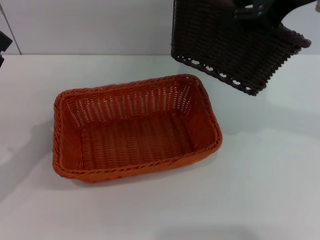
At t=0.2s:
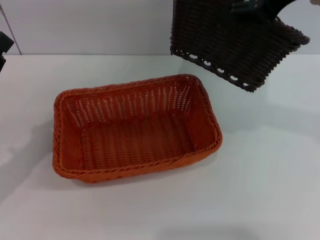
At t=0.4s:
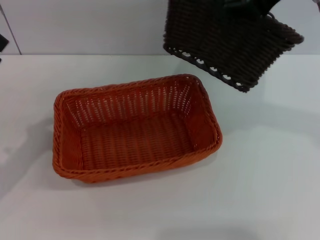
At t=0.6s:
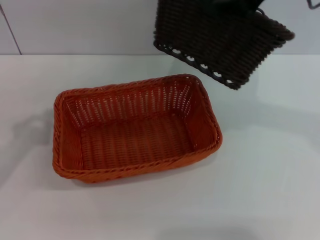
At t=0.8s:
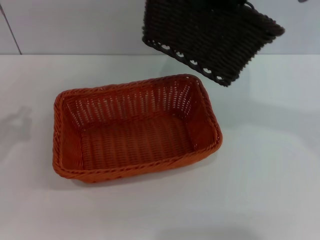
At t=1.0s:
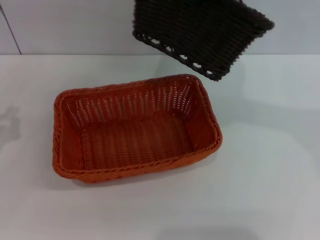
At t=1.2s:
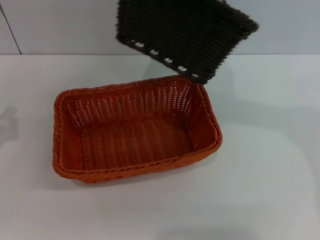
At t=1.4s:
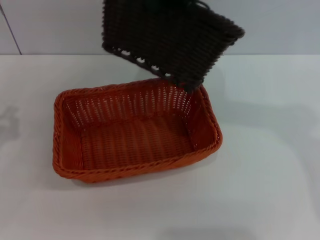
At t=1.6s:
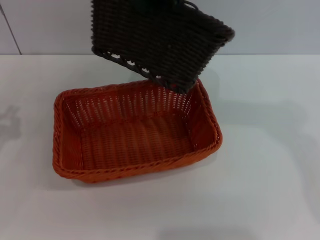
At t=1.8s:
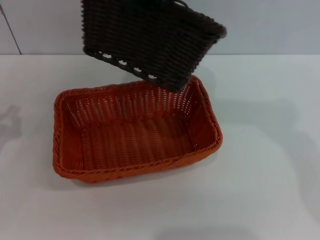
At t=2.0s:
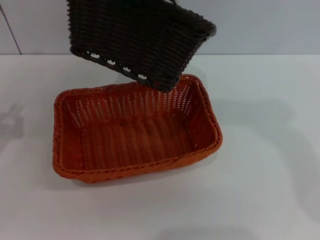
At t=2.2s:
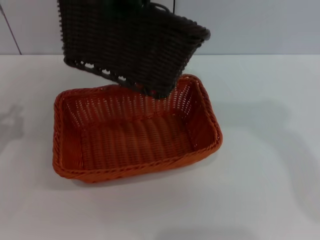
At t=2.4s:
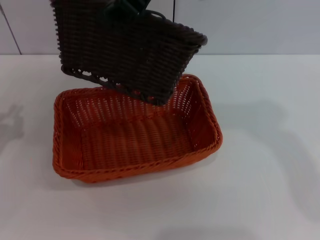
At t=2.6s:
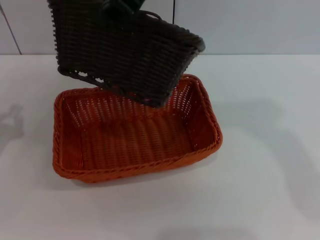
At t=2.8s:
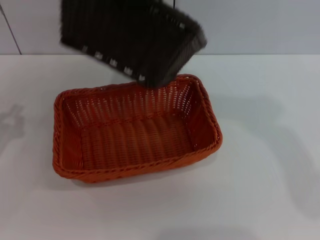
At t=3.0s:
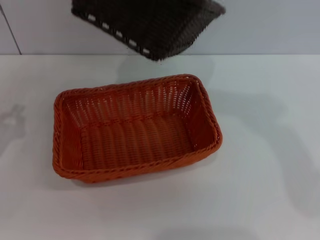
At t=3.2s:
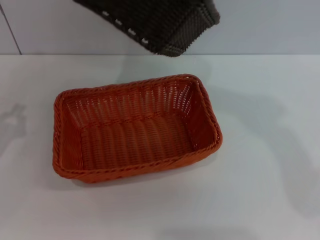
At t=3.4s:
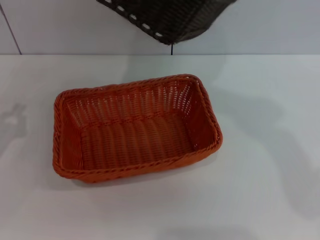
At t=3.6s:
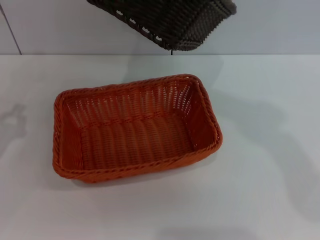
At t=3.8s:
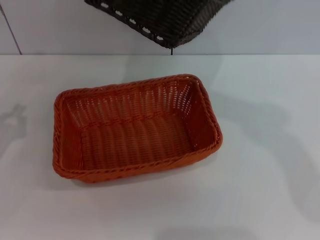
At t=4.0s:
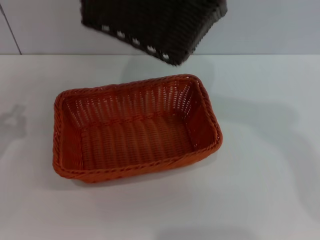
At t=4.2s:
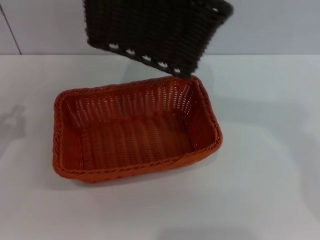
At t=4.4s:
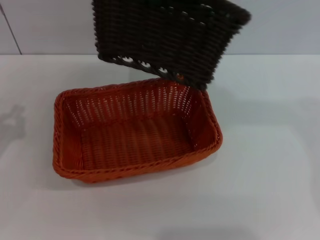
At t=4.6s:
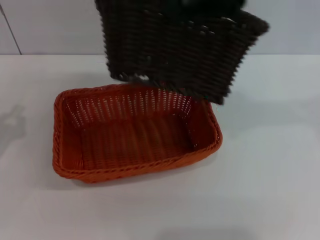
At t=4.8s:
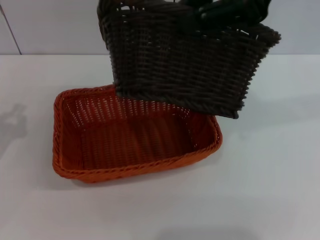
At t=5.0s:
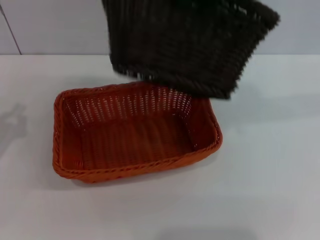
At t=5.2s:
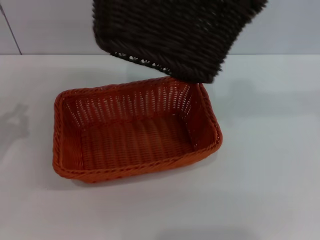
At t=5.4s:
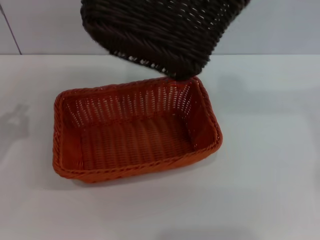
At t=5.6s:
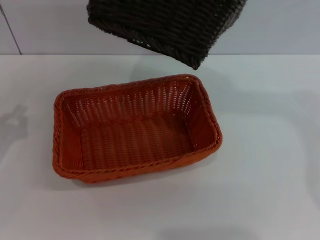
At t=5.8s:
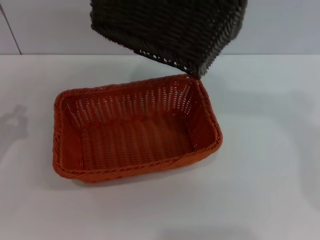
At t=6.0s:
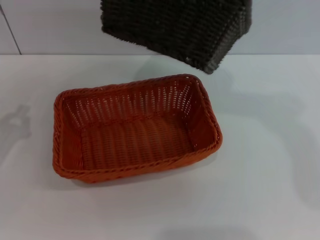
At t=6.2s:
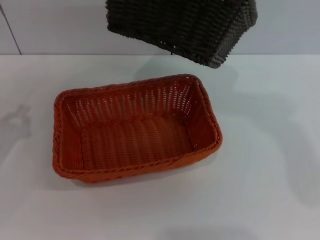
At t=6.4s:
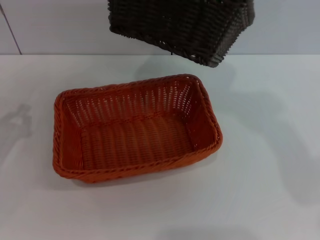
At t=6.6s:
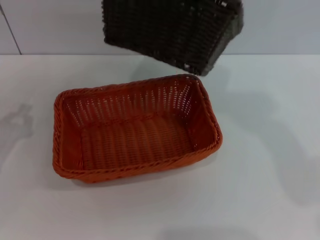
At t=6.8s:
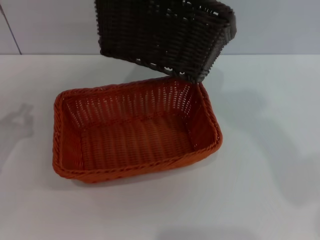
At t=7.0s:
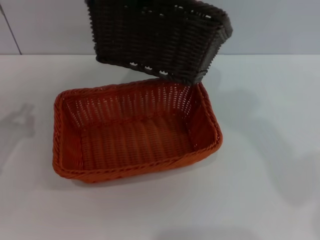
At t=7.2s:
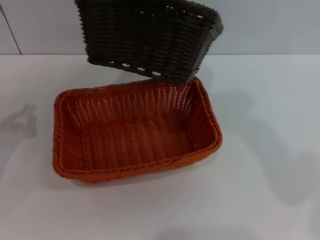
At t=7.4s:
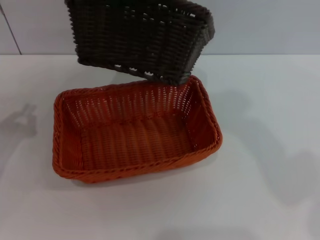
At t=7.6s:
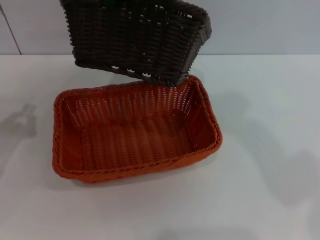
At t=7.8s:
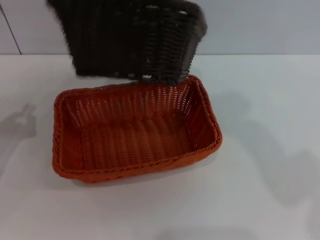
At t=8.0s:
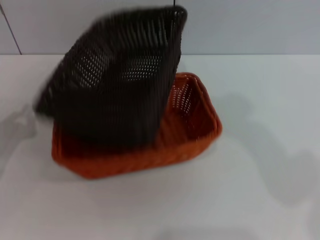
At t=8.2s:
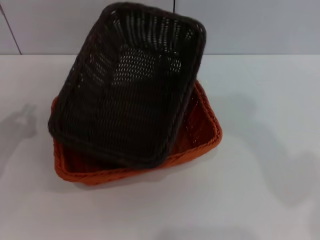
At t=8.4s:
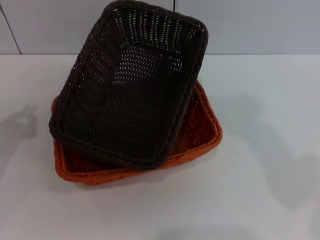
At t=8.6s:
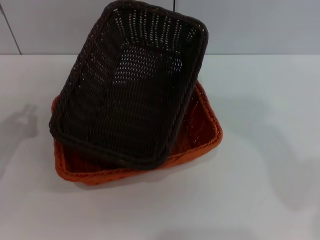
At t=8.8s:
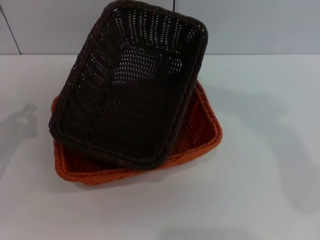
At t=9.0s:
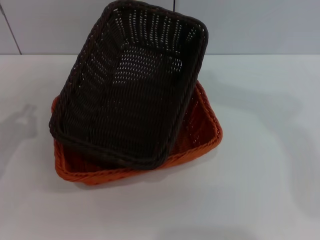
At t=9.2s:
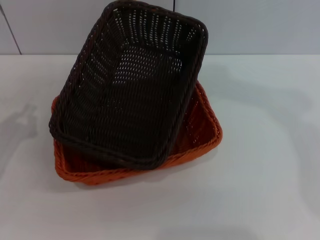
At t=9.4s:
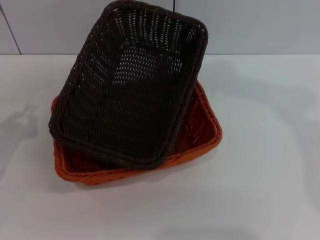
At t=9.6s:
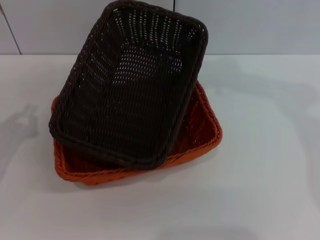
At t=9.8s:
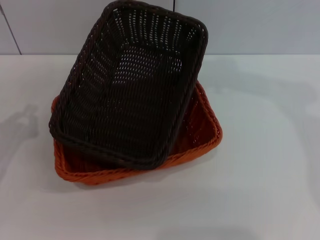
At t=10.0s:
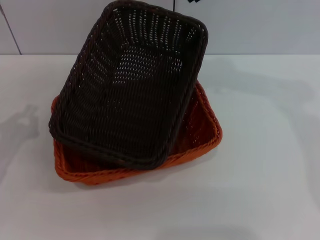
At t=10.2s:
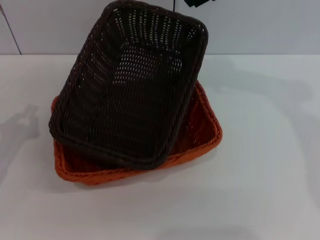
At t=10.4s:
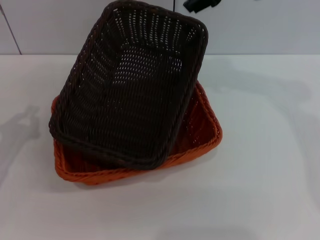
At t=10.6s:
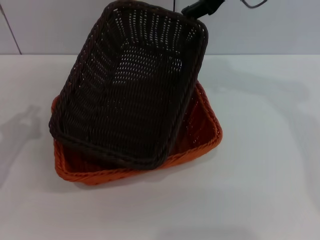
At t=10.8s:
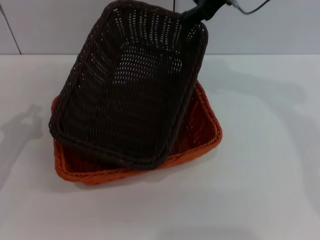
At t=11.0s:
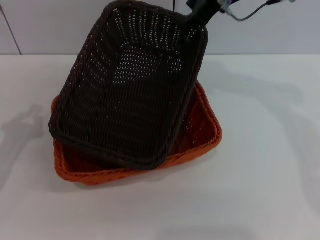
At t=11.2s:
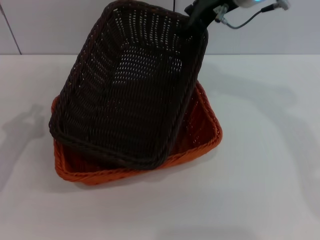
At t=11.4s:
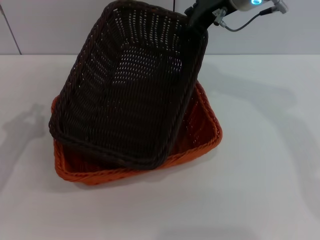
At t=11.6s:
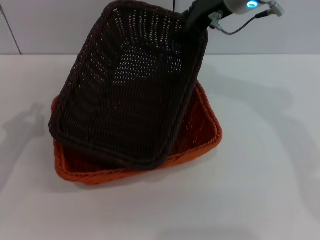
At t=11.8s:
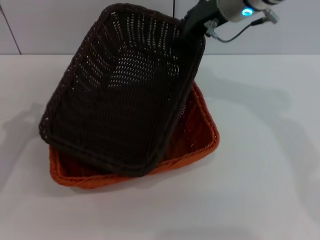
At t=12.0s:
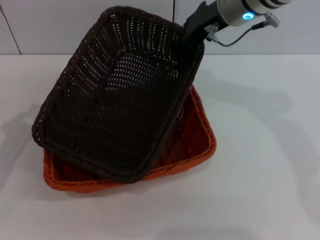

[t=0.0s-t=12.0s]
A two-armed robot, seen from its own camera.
t=0.0s to t=1.6s: The right gripper travels to the left by roughly 10 cm.
t=1.6s to t=3.0s: There are only small adjustments of the grippers.
t=3.0s to t=4.4s: The right gripper travels to the right by some 5 cm.
t=4.4s to t=6.0s: There are only small adjustments of the grippers.
t=6.0s to t=7.6s: The right gripper shifts some 10 cm to the left.
t=7.6s to t=9.0s: The right gripper moves to the right, roughly 10 cm.
t=10.4s to t=12.0s: The right gripper travels downward by approximately 5 cm.

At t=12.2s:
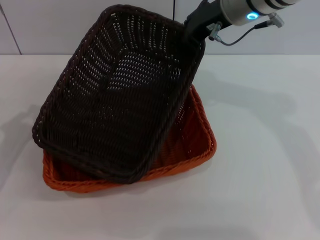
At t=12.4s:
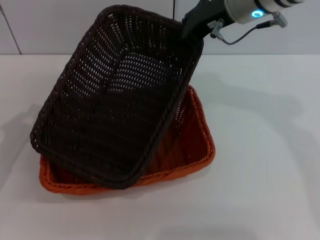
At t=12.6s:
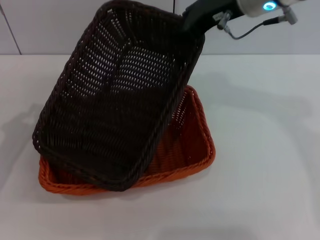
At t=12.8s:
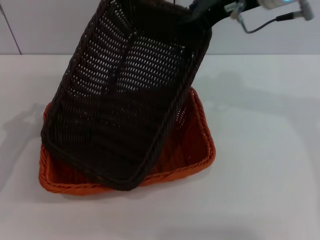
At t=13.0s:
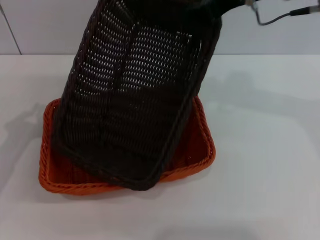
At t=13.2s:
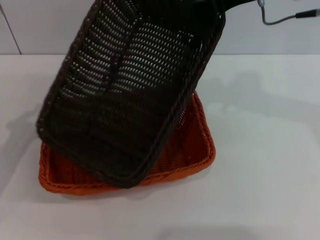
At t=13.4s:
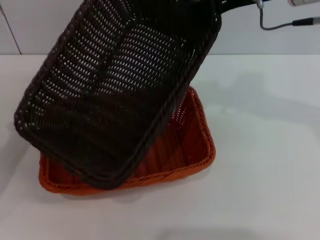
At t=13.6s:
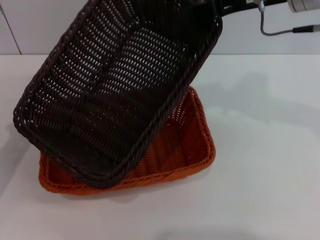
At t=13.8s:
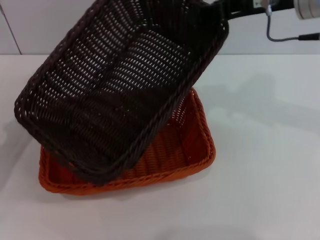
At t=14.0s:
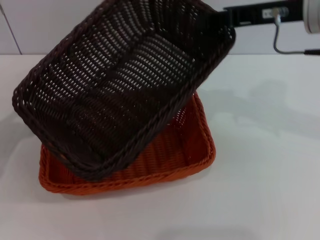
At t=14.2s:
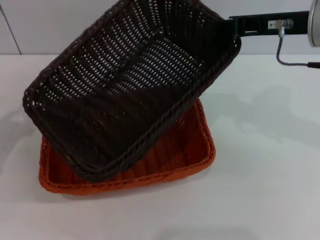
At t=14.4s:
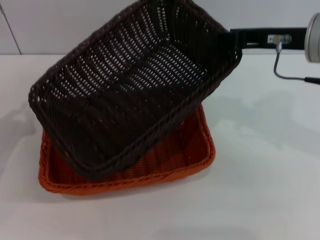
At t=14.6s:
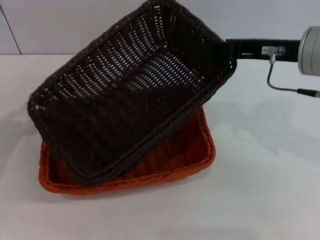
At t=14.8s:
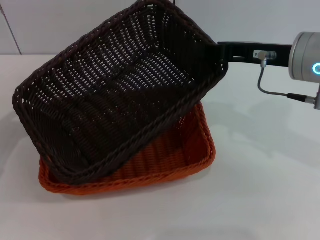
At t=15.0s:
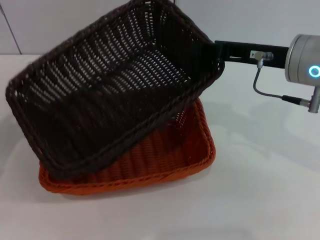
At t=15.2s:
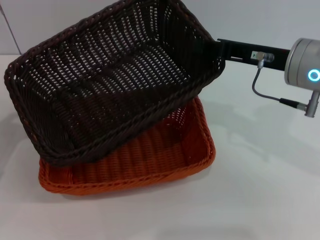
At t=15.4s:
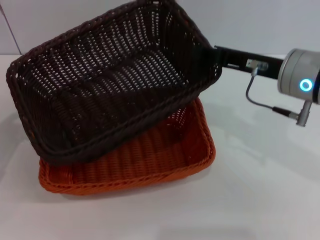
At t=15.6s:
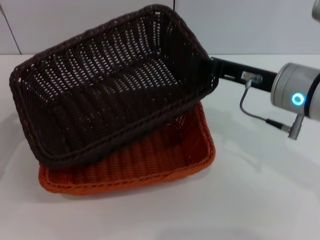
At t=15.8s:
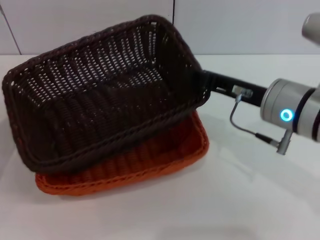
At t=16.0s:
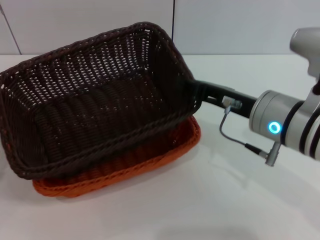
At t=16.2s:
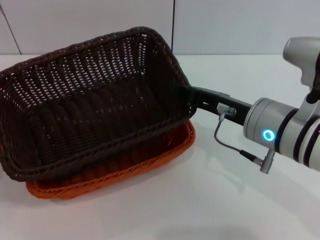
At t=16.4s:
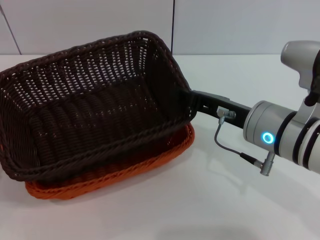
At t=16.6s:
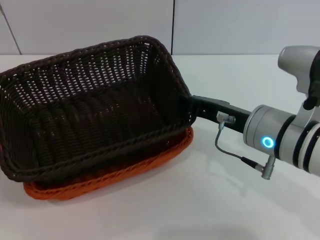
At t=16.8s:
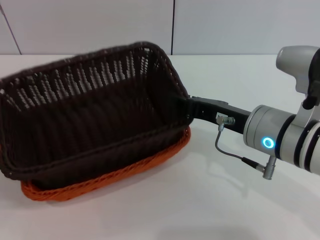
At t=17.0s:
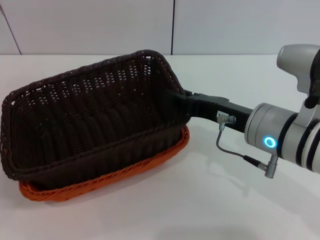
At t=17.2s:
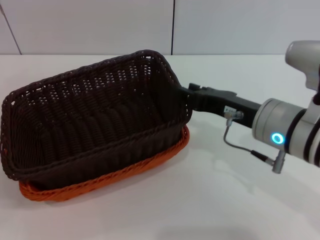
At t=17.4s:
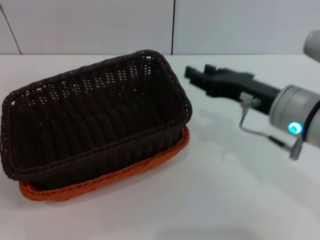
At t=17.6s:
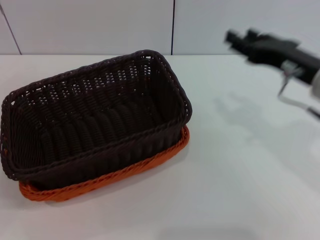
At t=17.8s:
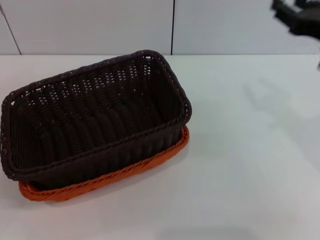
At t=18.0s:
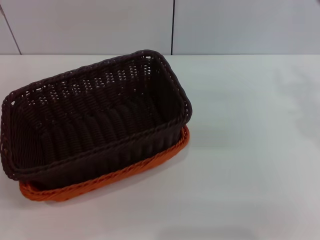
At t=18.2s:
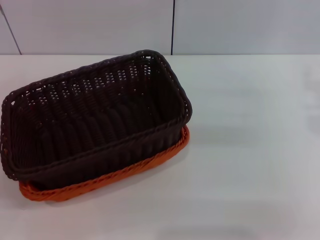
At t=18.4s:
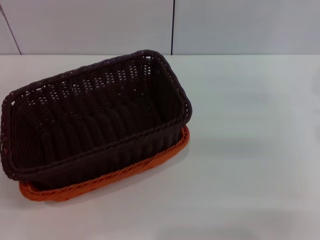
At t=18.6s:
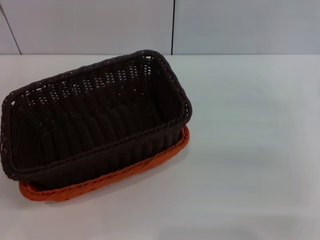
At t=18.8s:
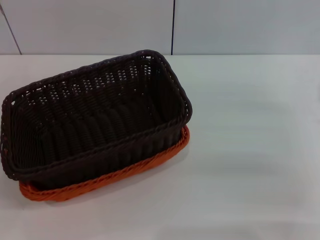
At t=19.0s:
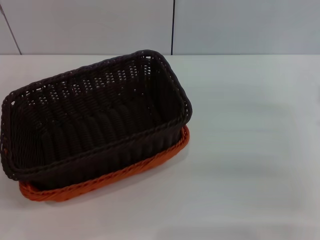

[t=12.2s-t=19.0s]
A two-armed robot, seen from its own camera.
Step, t=12.2s to t=16.8s: Place the dark basket on the light basket with the right gripper.
t=12.2s to t=13.6s: The right gripper travels to the right and backward by roughly 10 cm.
t=13.6s to t=15.0s: The right gripper goes approximately 10 cm downward and backward.
t=15.0s to t=16.2s: The right gripper heads downward, covering some 5 cm.
t=16.2s to t=17.6s: The right gripper moves to the right, roughly 5 cm, and opens.
t=17.6s to t=19.0s: The right gripper goes approximately 15 cm to the right and downward.
